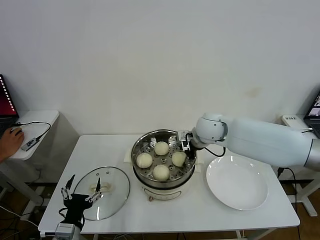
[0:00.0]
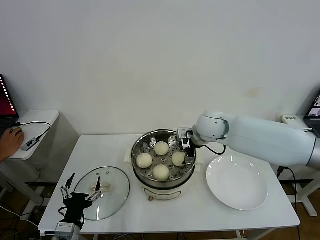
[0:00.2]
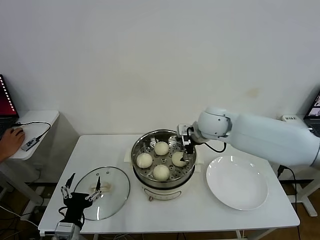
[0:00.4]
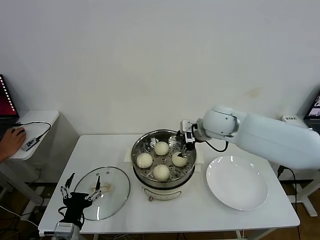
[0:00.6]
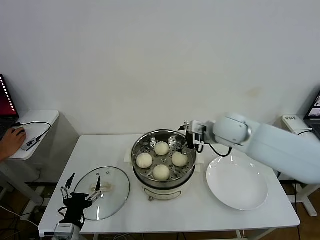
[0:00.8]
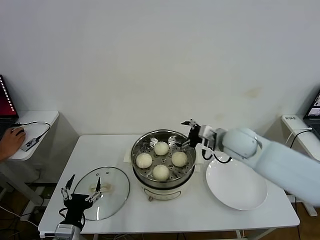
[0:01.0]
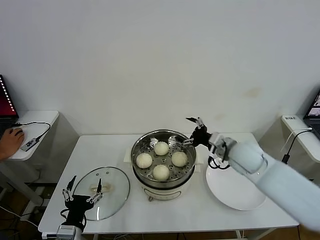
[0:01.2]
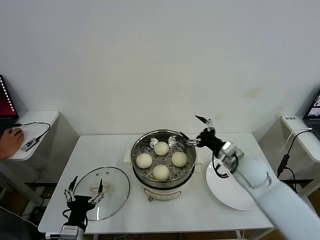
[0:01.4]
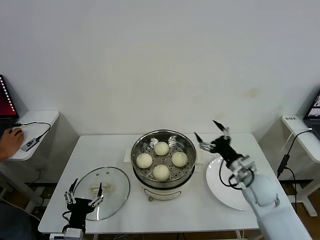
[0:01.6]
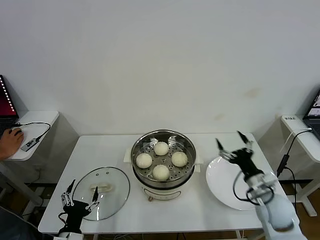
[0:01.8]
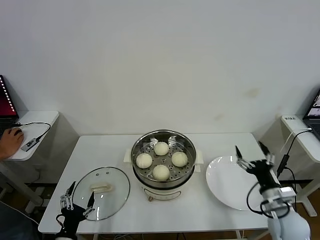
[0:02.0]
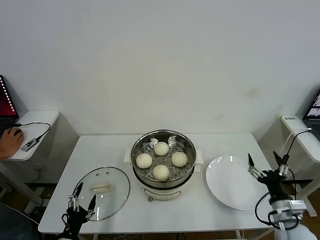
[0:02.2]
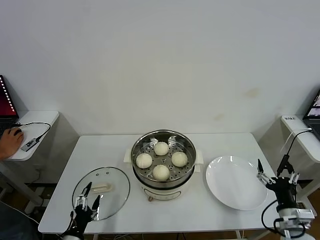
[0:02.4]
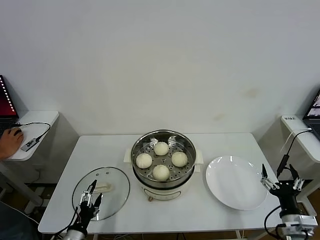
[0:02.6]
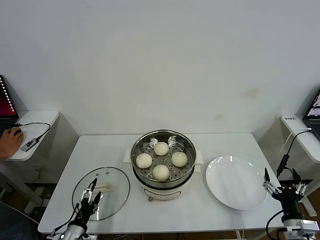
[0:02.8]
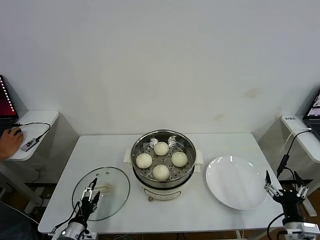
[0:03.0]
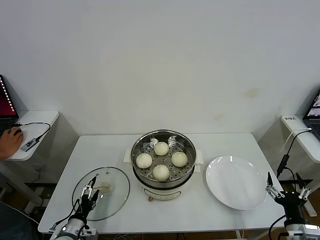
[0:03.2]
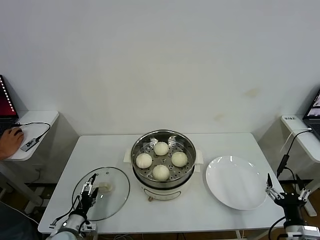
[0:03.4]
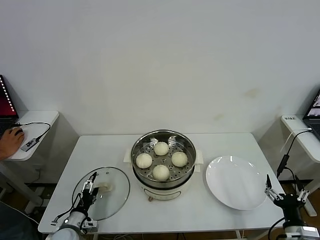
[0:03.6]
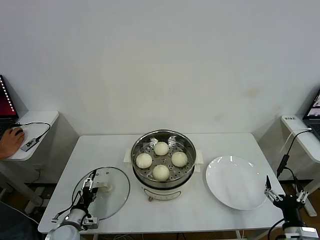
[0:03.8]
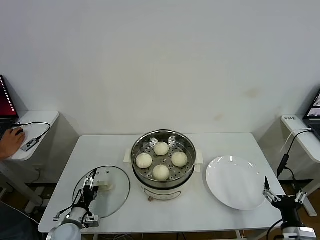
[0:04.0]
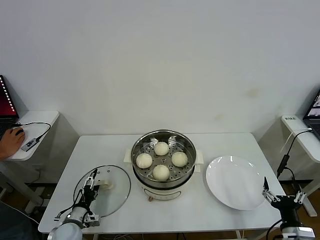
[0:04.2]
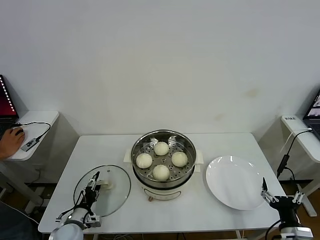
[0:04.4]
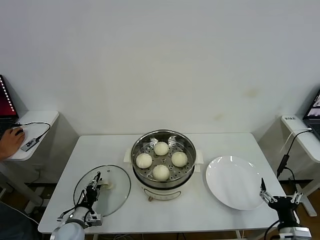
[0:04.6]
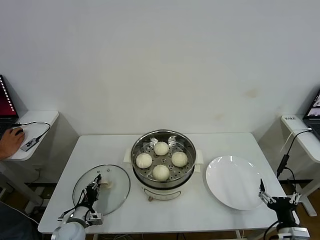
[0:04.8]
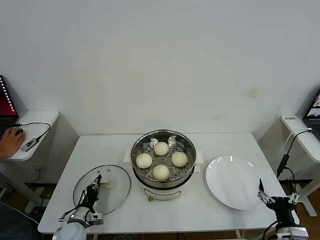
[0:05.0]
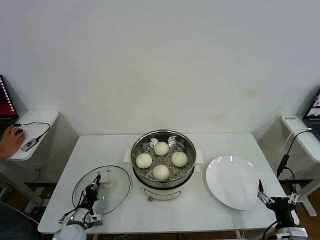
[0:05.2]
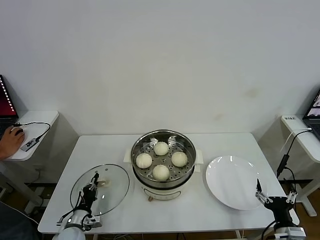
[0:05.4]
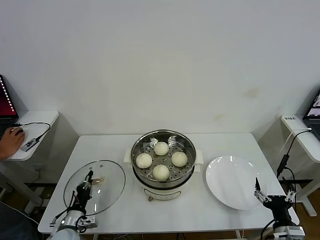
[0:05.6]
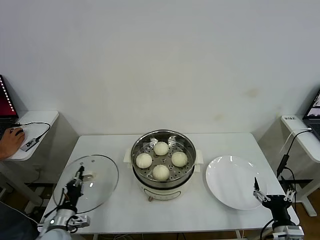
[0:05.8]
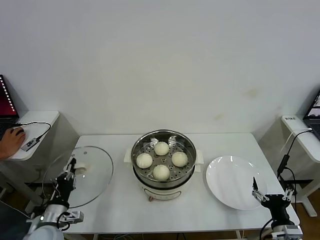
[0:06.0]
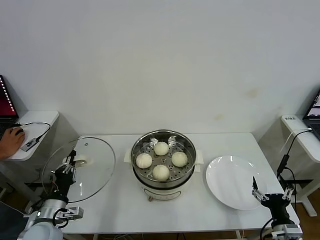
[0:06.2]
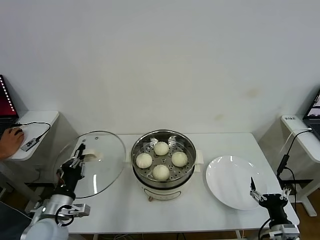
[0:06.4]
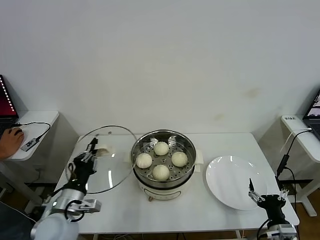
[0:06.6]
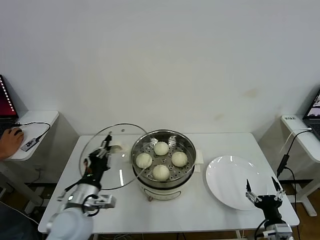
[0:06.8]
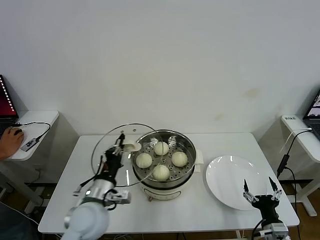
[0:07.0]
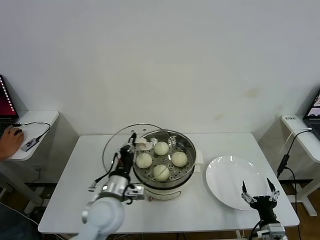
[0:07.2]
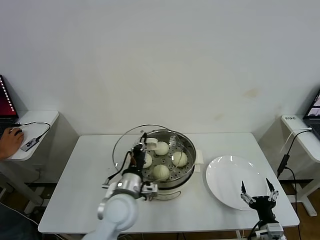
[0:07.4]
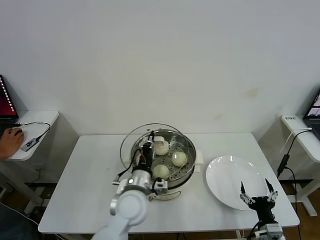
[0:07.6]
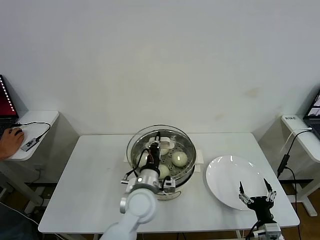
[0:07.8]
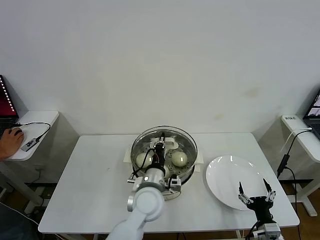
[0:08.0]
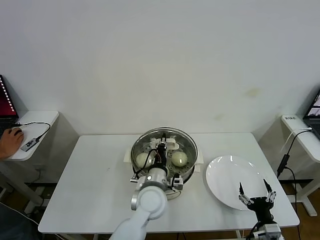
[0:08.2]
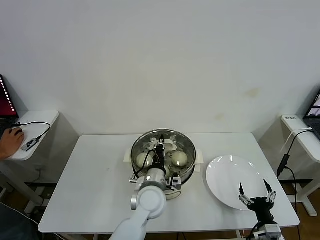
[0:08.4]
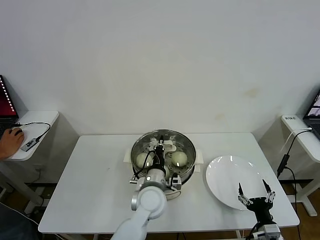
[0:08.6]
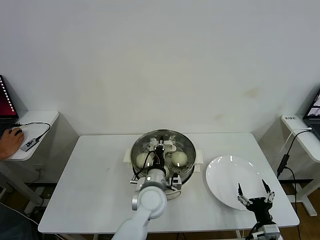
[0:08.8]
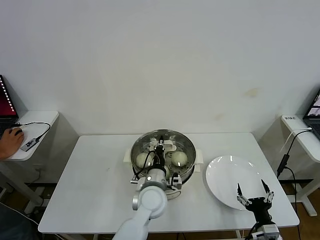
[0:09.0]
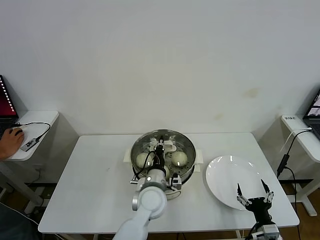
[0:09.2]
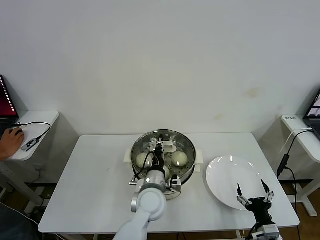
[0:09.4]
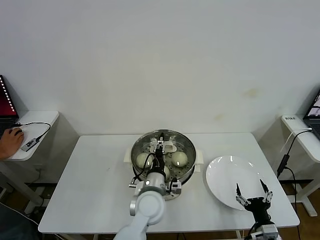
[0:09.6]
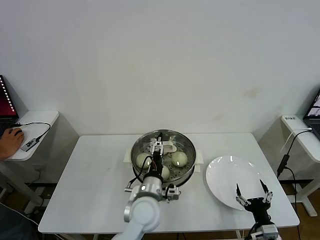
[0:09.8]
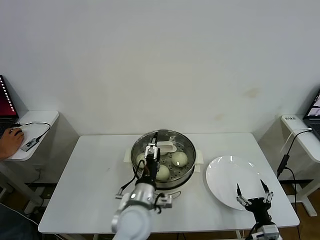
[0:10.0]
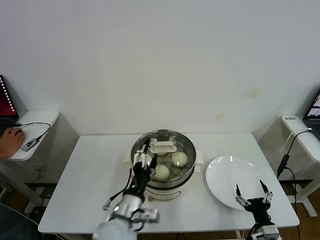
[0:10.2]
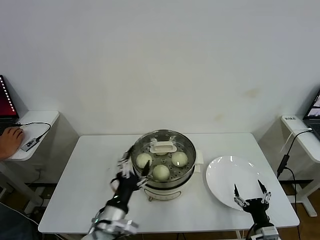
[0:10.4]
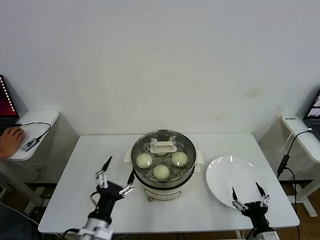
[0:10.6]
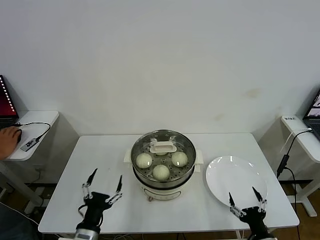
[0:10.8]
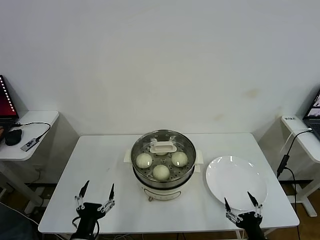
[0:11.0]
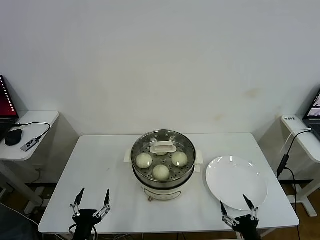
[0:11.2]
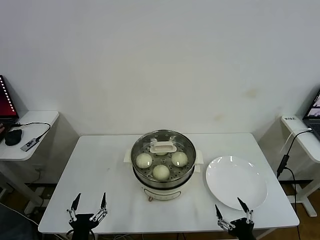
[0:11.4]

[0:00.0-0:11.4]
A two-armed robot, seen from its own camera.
Task of the whole recording: take steamed baozi put them in steamer then cover it.
Step, 0:00.2 to 0:05.0: Grasp the pot lid with left gripper.
Step, 0:05.2 to 0:09.6: Place the pot lid on the steamer with left gripper.
0:00.0 to 0:01.4: The right gripper heads to the right, backward and downward, covering roughly 20 cm, and opens its fingers.
0:01.4 to 0:02.8: The left gripper travels downward by roughly 5 cm. Meanwhile the right gripper goes about 25 cm backward, to the right and downward.
0:02.8 to 0:04.2: The left gripper shifts roughly 10 cm forward.
0:04.2 to 0:05.6: The left gripper closes its fingers.
0:05.6 to 0:07.2: The left gripper shifts some 25 cm upward and to the right.
0:07.2 to 0:08.6: The left gripper moves to the right and forward, roughly 15 cm.
0:08.6 to 0:10.0: The left gripper travels backward by approximately 5 cm, and opens.
0:10.0 to 0:11.4: The right gripper travels backward by about 5 cm; the left gripper shifts approximately 25 cm to the left, backward and downward.
